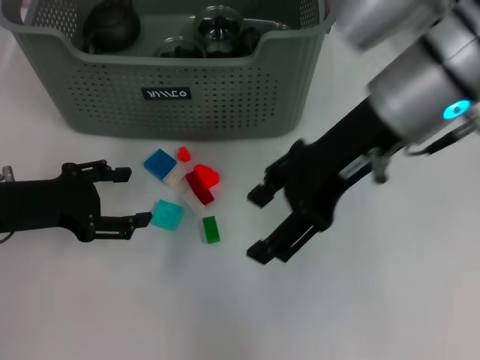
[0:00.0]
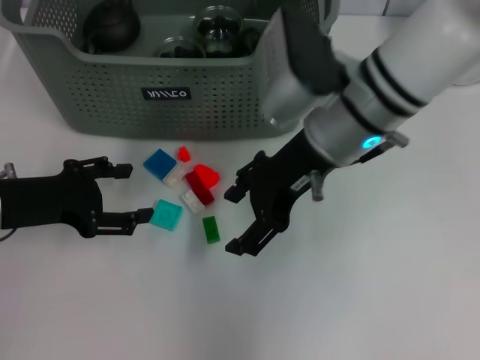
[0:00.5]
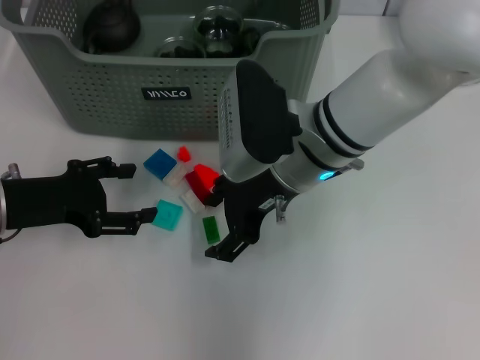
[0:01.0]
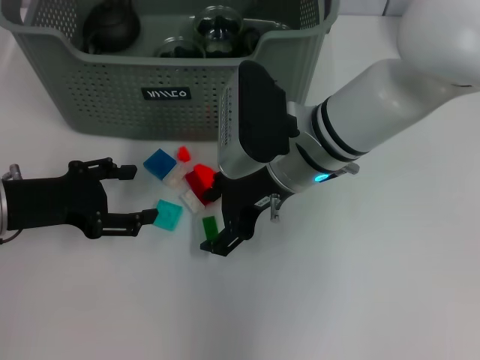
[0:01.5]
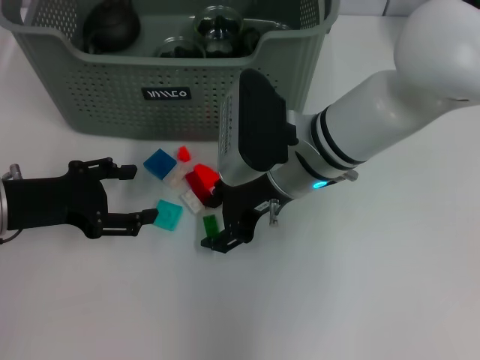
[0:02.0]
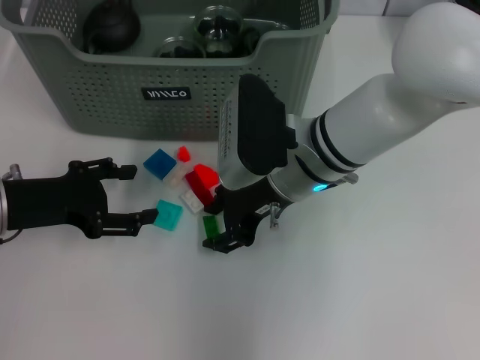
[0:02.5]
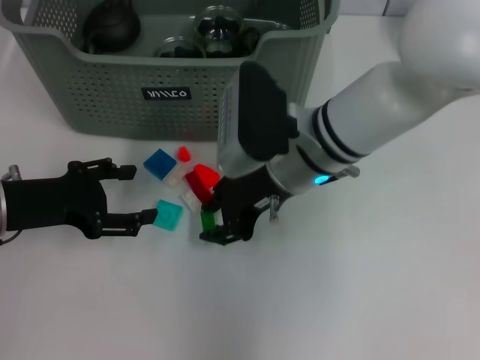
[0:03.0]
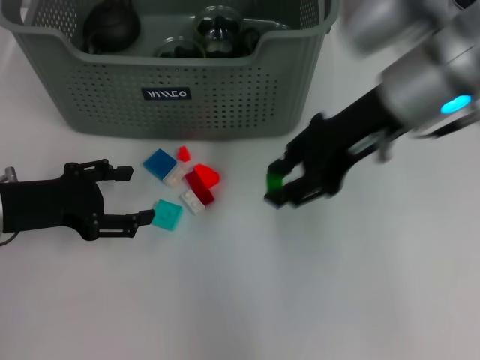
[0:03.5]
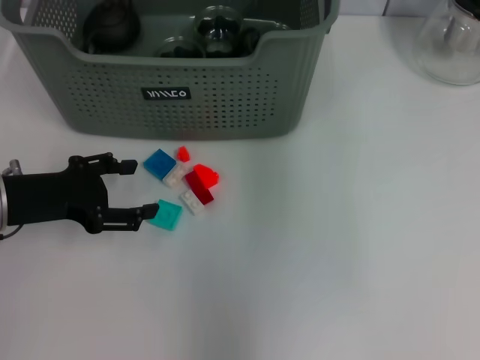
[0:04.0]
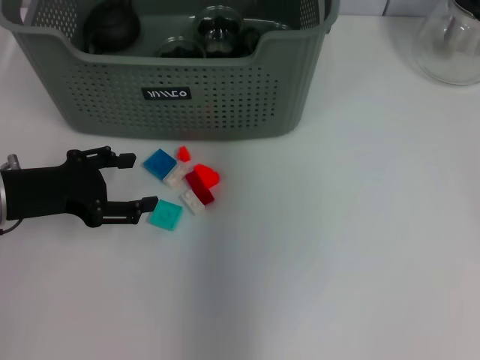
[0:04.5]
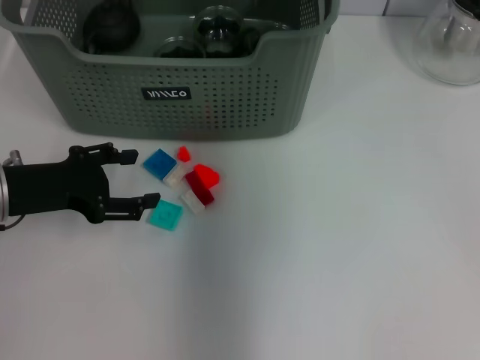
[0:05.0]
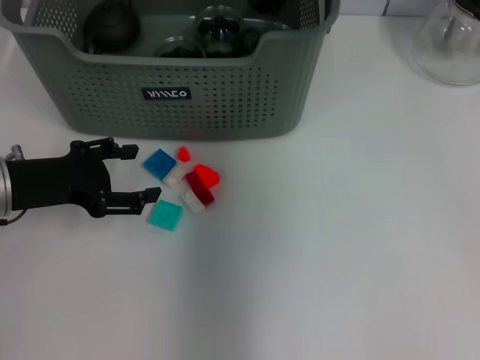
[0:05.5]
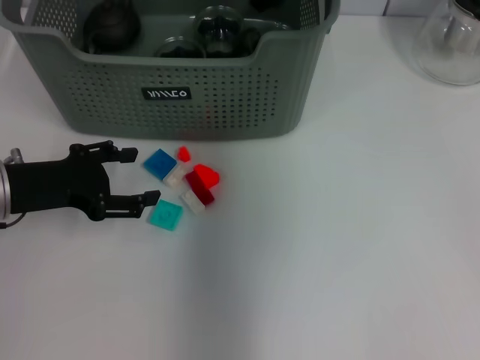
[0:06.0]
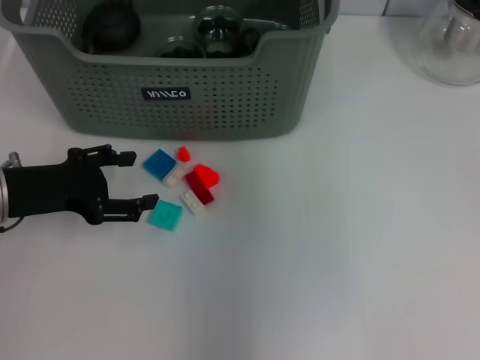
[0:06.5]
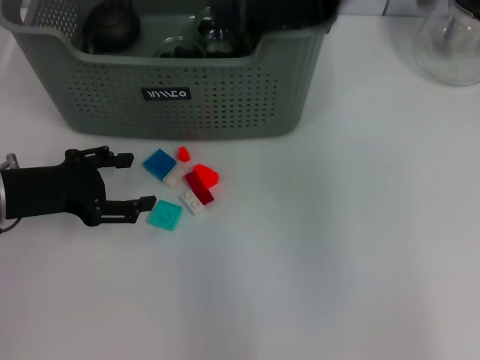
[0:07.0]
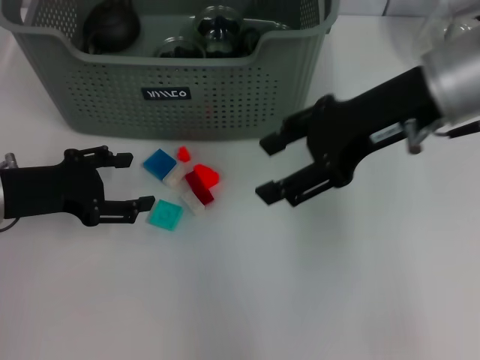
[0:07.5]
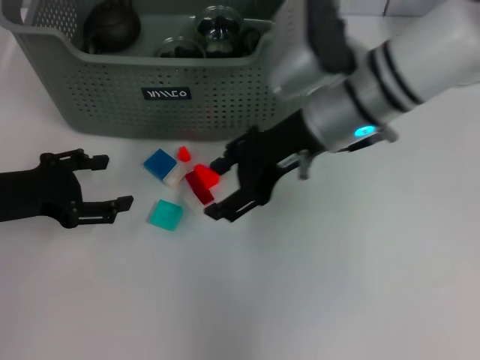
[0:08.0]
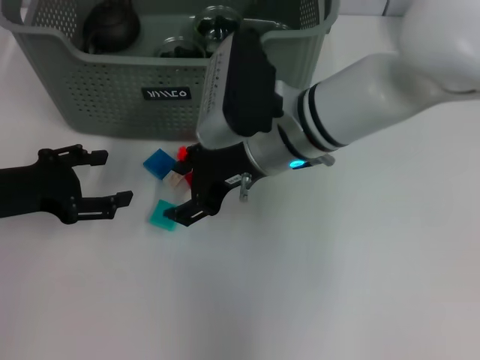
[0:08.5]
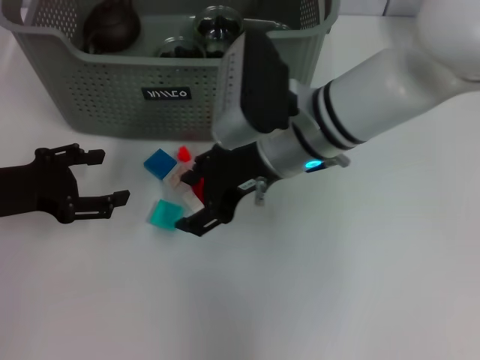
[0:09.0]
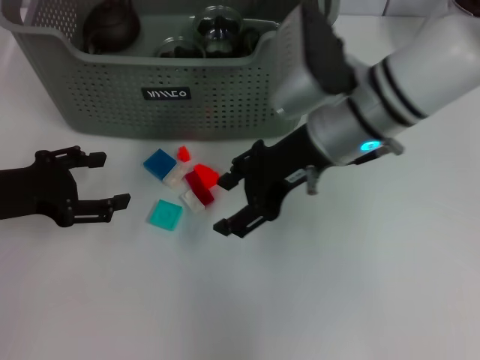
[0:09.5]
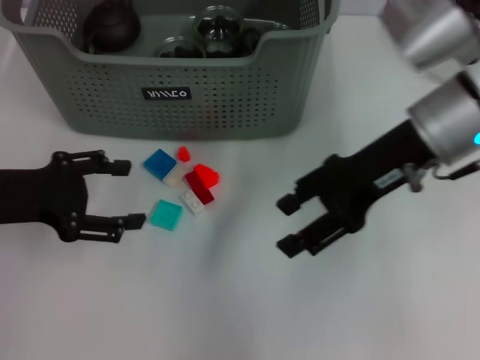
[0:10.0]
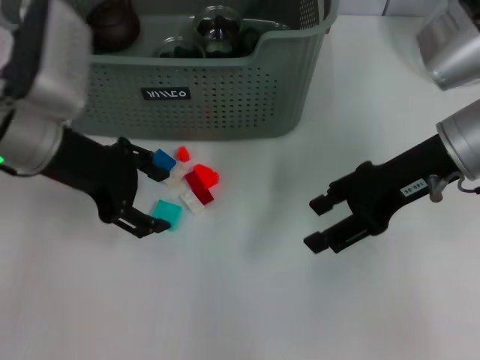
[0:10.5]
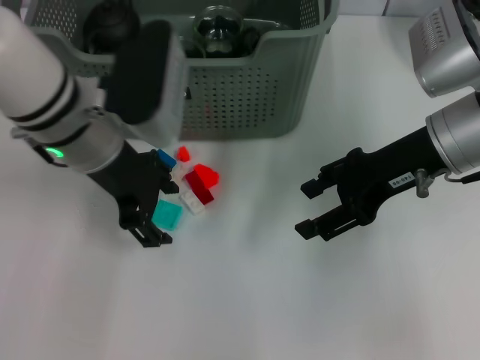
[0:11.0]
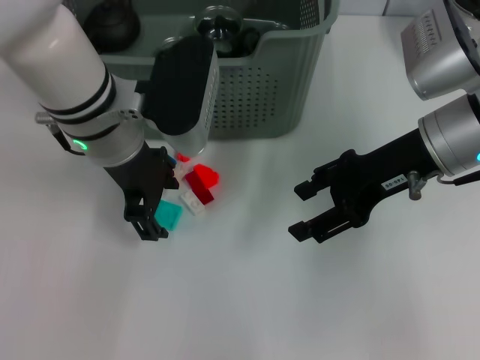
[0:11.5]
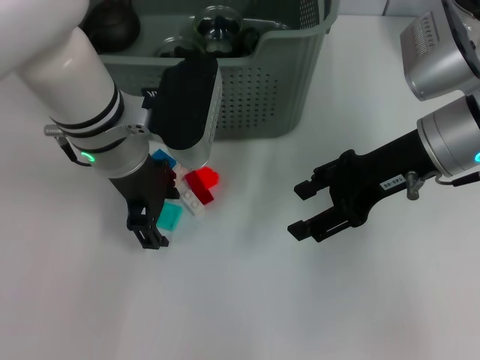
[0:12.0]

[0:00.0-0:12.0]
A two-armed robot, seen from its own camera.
Task of the whole recording: pick up the teacup on the table and place it into the storage bin, pick up the block on the table and place it into the storage bin.
Step, 0.0 to 2.5 s: Grasp the green block with right gripper.
Step, 3.0 to 6.0 s: Place the green block in the storage box with right gripper.
0.0 to 2.0 s: The right gripper moves downward and to the left, approximately 15 cm.
2.0 to 4.0 s: The right gripper moves upward and to the right, some 30 cm.
4.0 to 6.0 s: The right gripper heads downward, to the left and forward, covering about 20 cm.
6.0 to 8.0 s: The right gripper shifts roughly 15 cm backward and downward.
8.0 to 10.0 s: The right gripper is displaced to the right by about 10 cm.
10.0 to 12.0 s: The left gripper moves to the right and forward, about 20 cm.

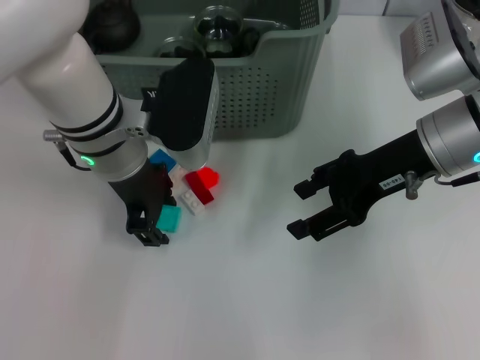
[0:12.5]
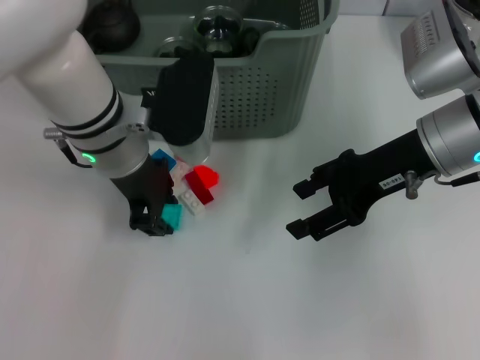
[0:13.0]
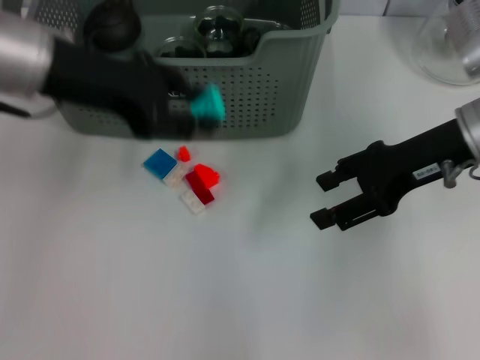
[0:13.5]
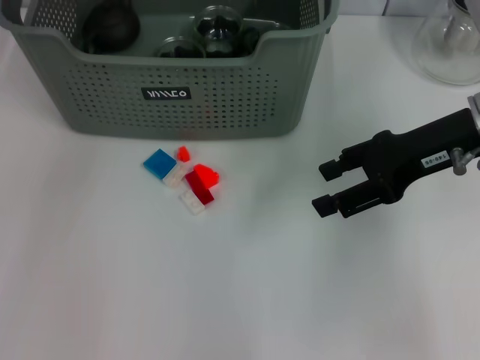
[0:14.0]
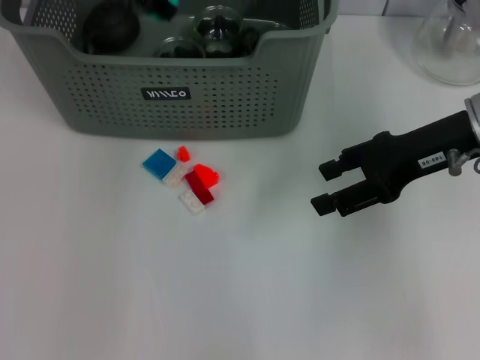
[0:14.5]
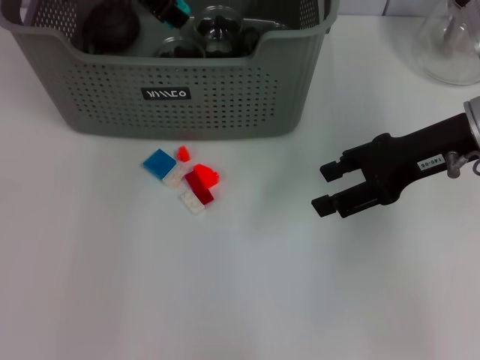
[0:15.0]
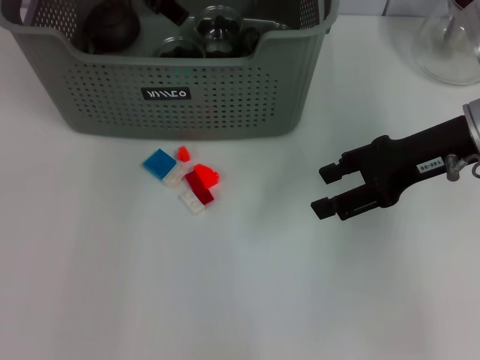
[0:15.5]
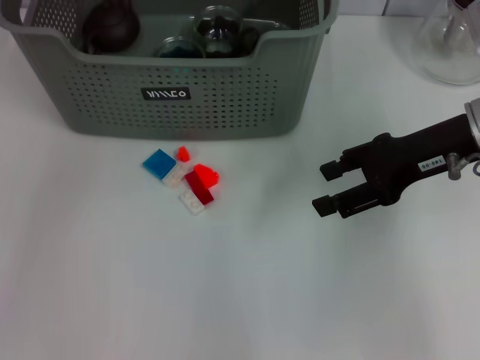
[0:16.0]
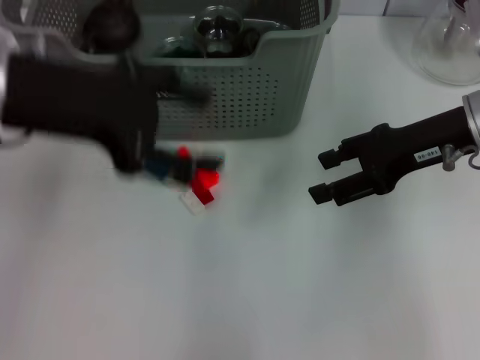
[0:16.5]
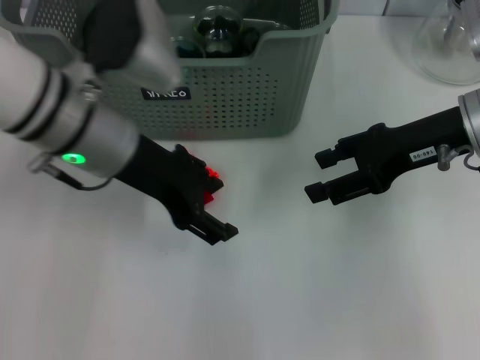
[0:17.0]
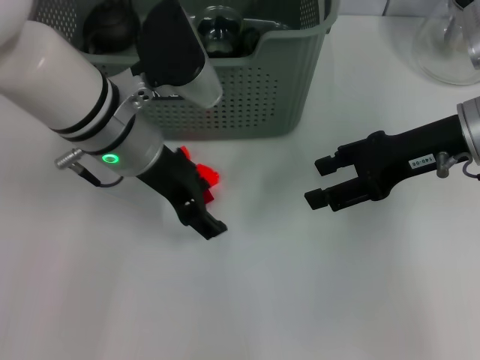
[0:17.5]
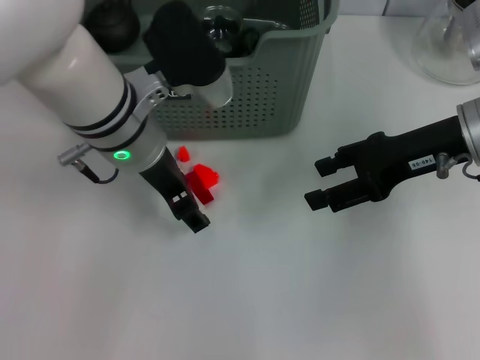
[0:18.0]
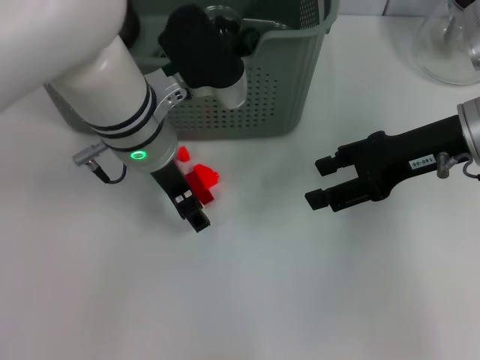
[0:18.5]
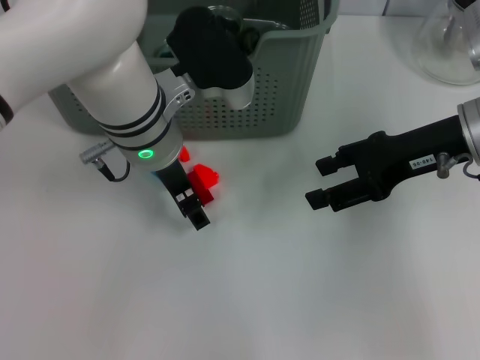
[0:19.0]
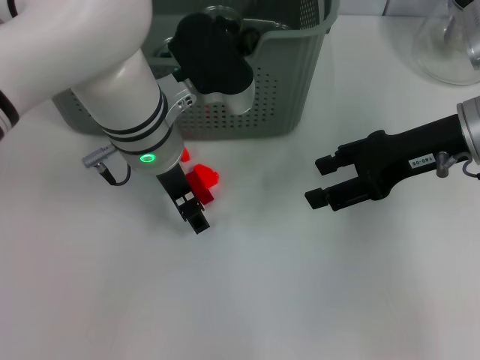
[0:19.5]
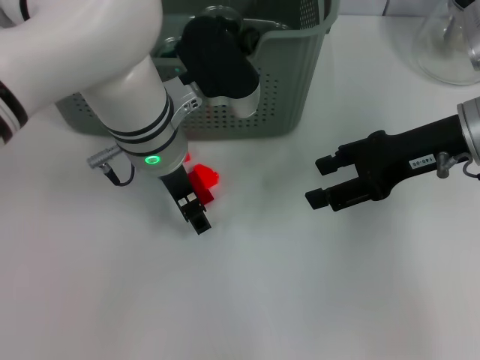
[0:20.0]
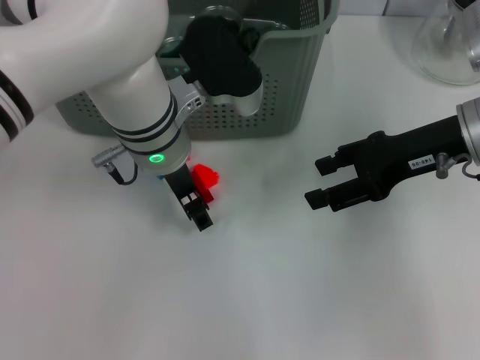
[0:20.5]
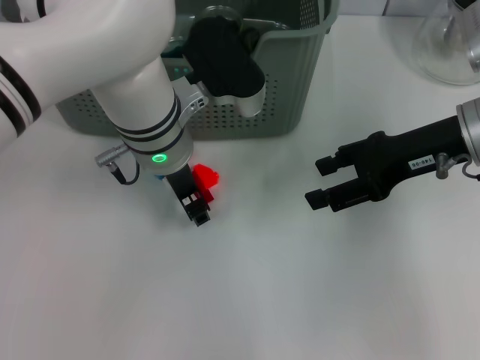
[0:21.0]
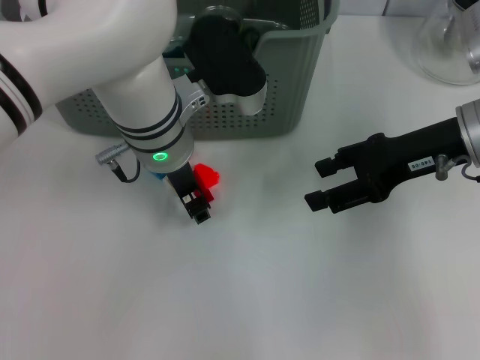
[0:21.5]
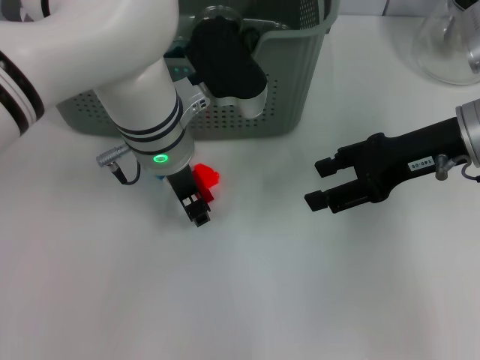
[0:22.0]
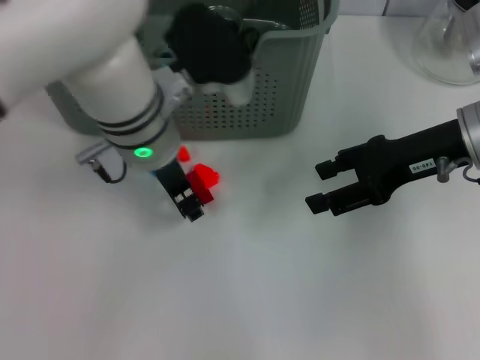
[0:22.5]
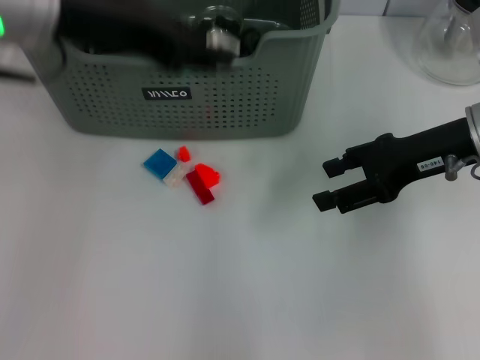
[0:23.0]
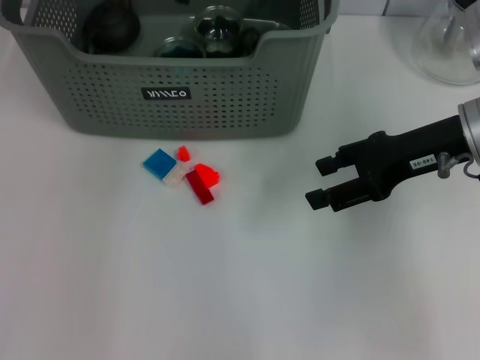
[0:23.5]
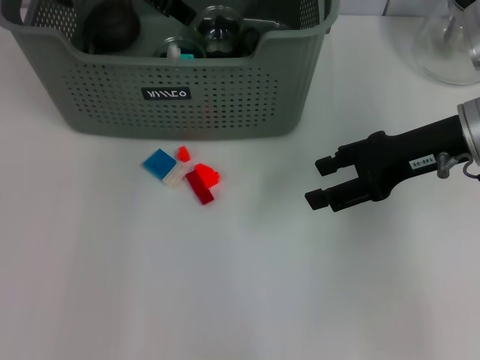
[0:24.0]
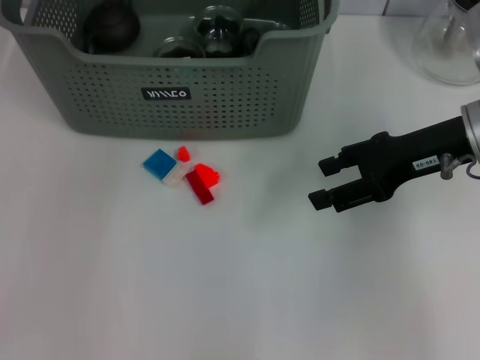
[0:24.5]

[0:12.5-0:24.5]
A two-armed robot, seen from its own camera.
Task of the whole recording: pick up the teacup on the table and place it into the storage bin, pick up the block on the table and place it into the storage bin.
Step, 13.0 to 15.5 s: Place the light blue block in the storage box with left gripper.
Step, 16.0 to 22.0 s: Grasp the white block with left gripper.
Step, 22.5 to 24.0 s: Place the white block in the storage box with left gripper.
12.5 to 14.5 s: The left gripper goes roughly 15 cm upward and forward, and closes up.
14.5 to 16.5 s: The left gripper moves backward, about 15 cm, and opens.
16.5 to 18.5 s: The left gripper goes some 15 cm to the right, downward and forward.
18.5 to 20.5 s: There are only small adjustments of the grippers.
20.5 to 22.5 s: The left gripper closes its fingers.
22.5 to 24.5 s: The left gripper heads upward and to the left, covering roughly 20 cm, and opens up.

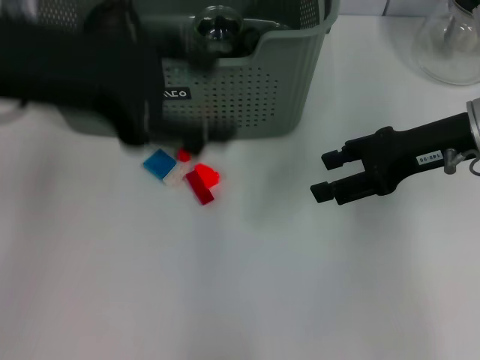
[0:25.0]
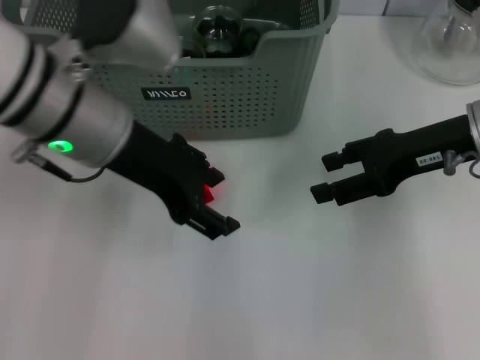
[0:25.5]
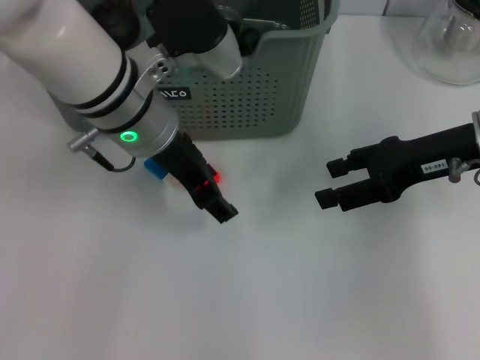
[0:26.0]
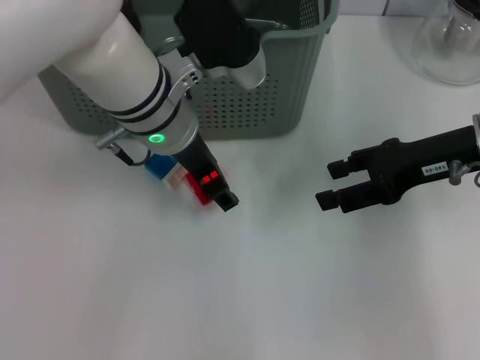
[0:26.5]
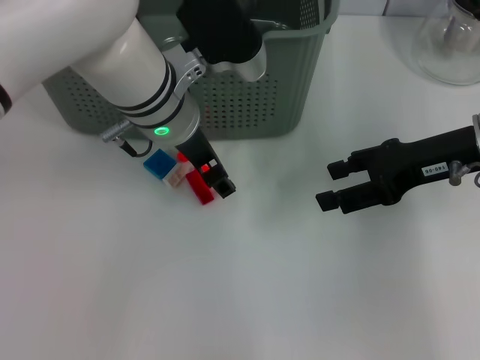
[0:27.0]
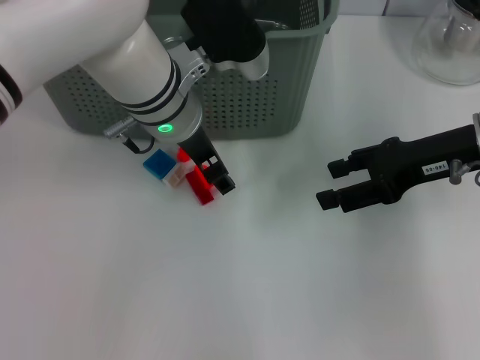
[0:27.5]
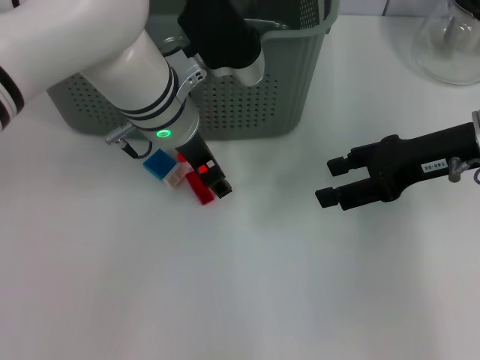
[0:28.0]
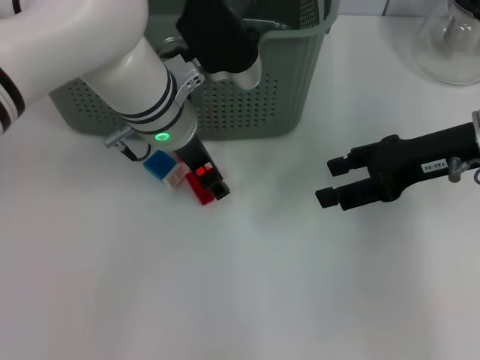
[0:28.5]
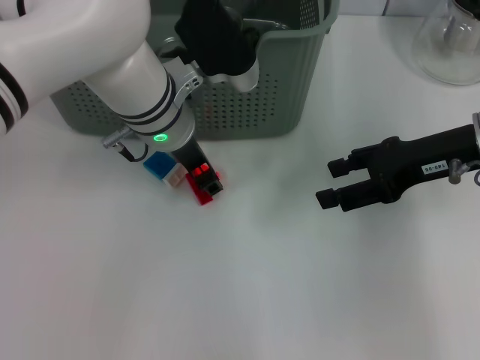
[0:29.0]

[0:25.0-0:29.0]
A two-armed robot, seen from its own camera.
Task of the whole recording: pick up the teacup on the table and place it into the storage bin, pick up the block on the table and place it into the storage bin.
25.0 to 27.0 s: The left gripper travels downward, to the right and forward by about 20 cm.
27.0 to 29.0 s: The grippers move only a little.
